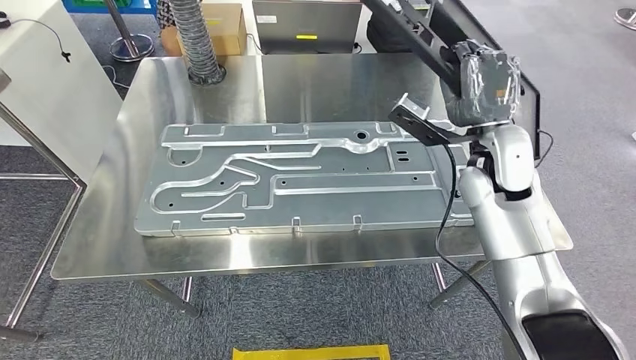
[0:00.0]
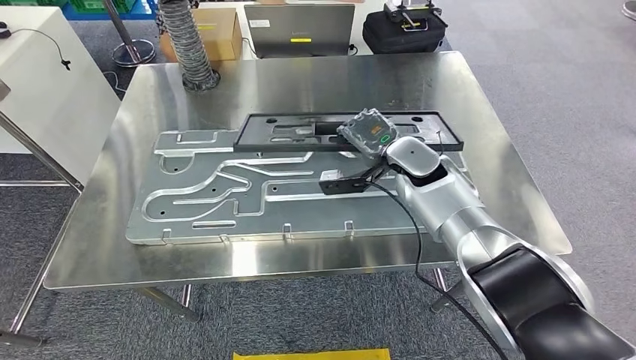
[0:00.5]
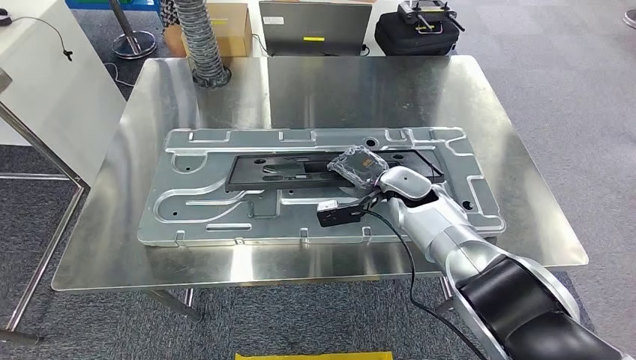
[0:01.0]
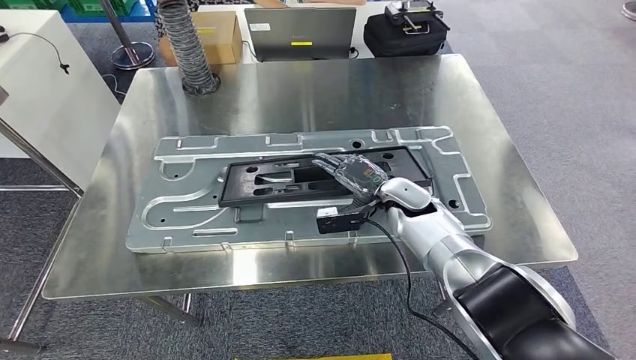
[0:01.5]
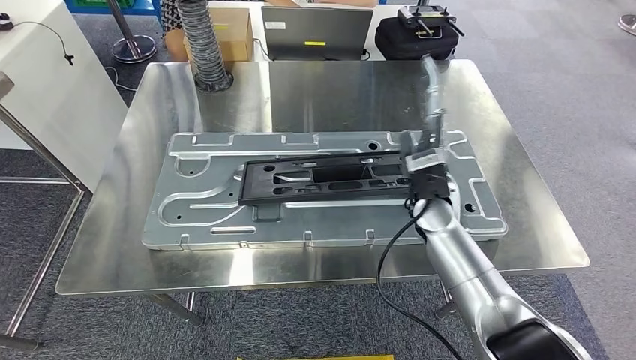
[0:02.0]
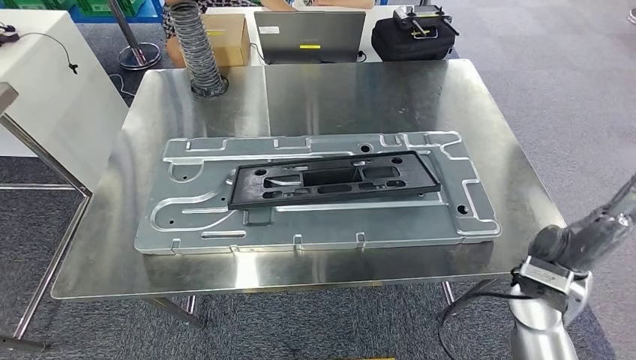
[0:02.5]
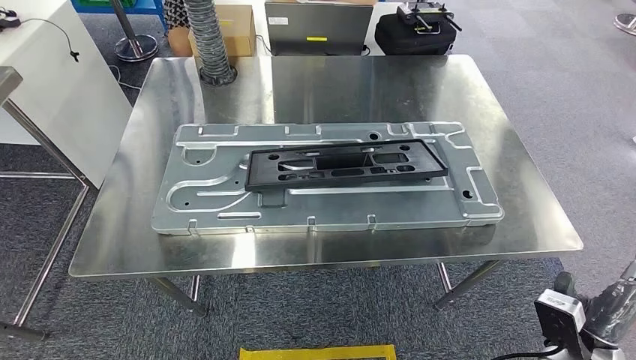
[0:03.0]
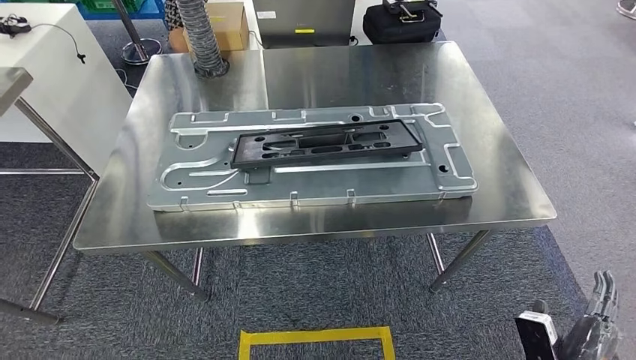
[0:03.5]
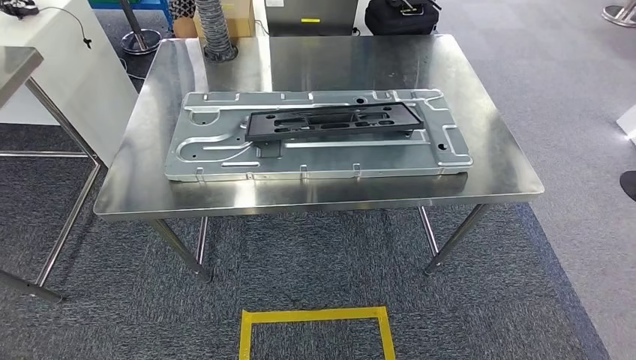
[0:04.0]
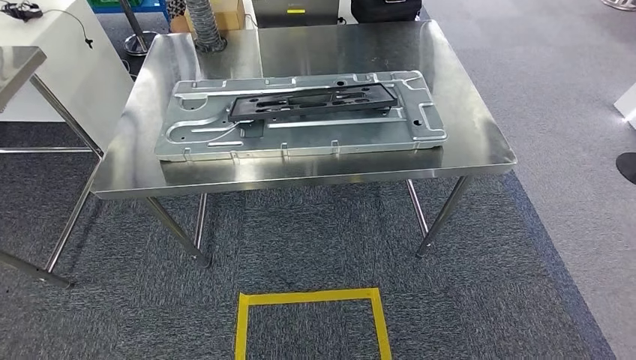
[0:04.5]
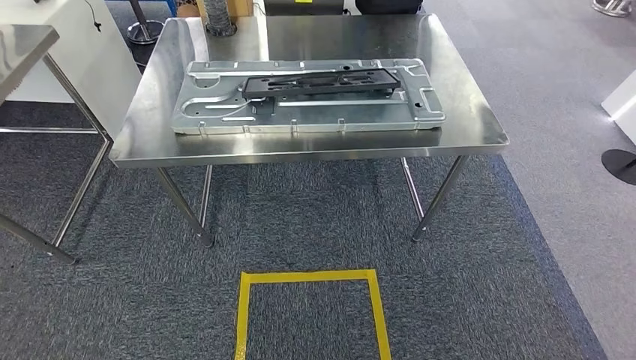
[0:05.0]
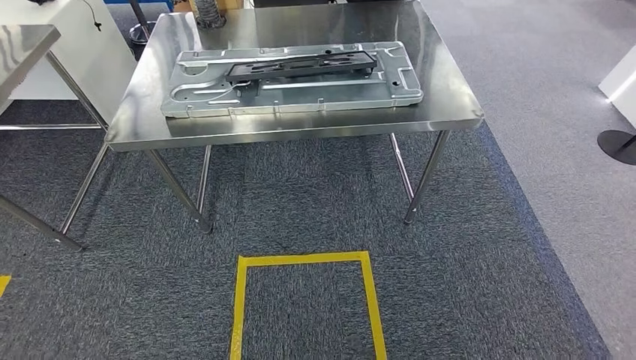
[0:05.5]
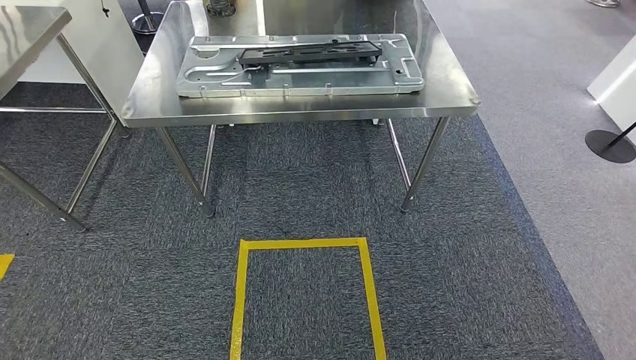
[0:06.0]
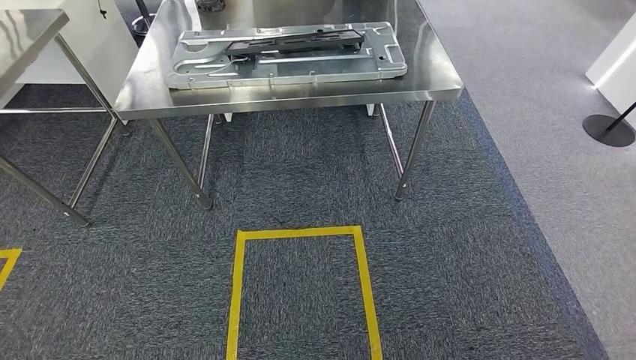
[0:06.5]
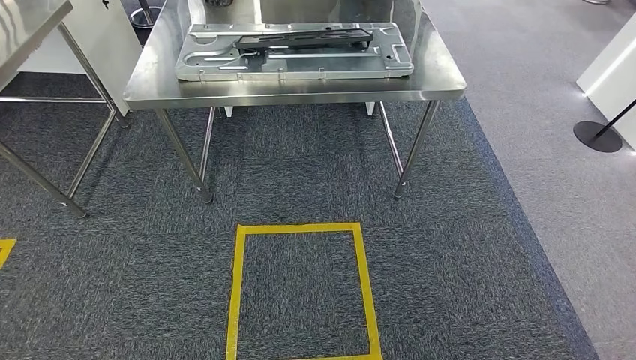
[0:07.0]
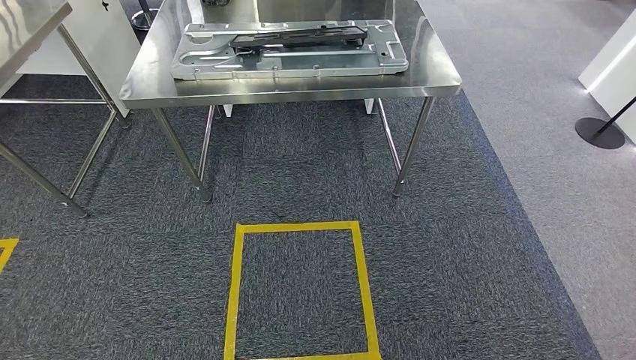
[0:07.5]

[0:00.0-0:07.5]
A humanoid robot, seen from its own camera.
Step, 0:00.5 to 0:03.0: Insert the large material into the corresponding slot on the workbench.
Step, 0:03.5 to 0:07.5: Move to the initial position of the shelf.

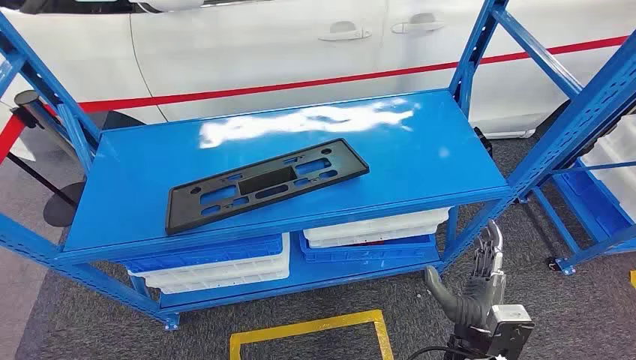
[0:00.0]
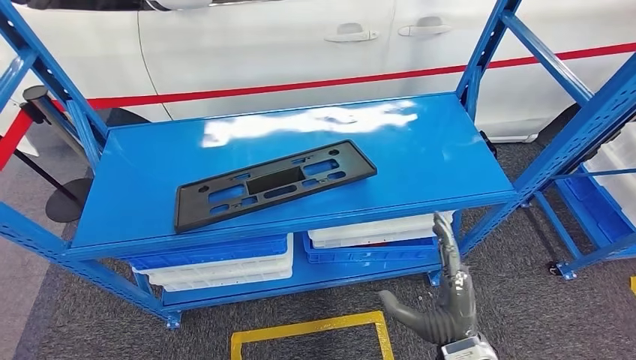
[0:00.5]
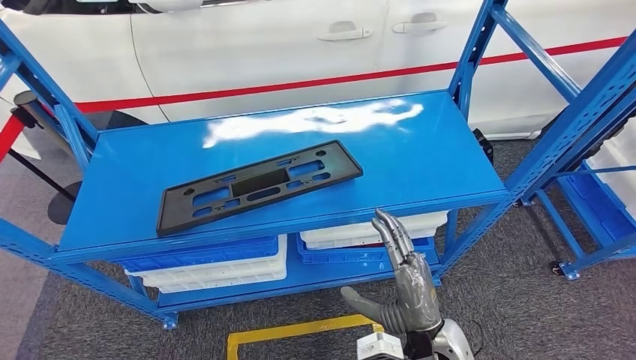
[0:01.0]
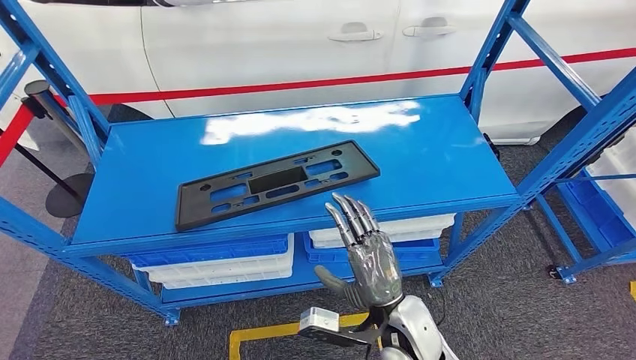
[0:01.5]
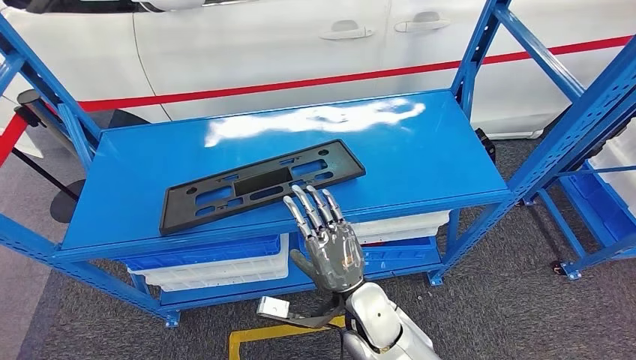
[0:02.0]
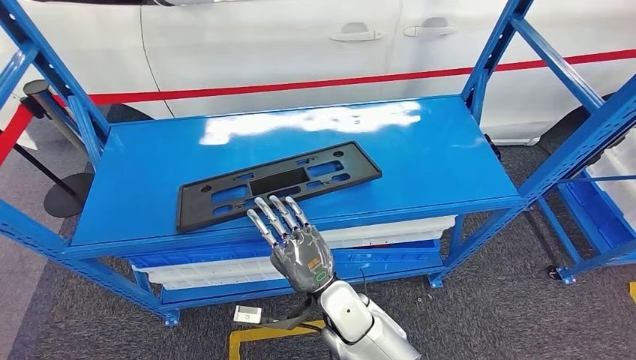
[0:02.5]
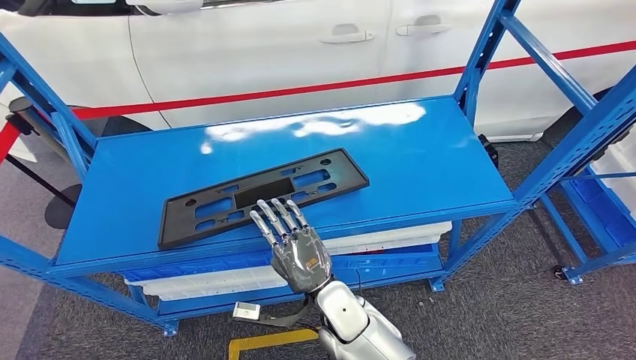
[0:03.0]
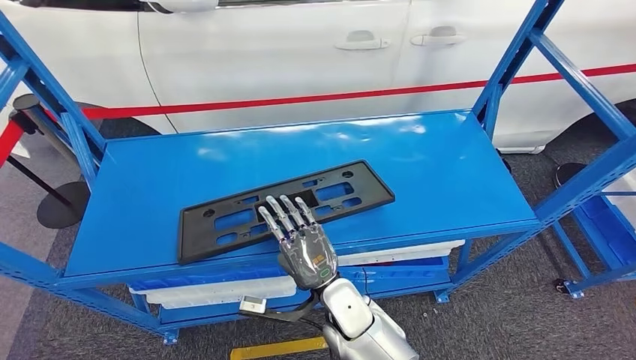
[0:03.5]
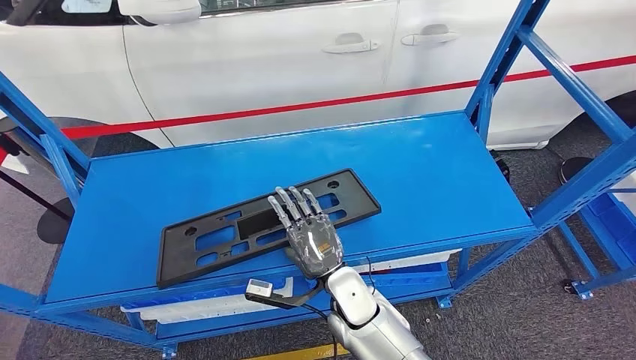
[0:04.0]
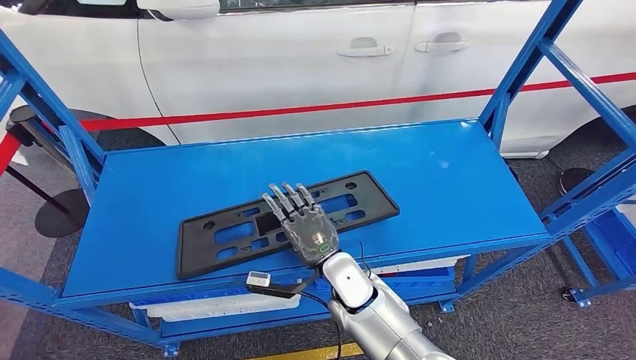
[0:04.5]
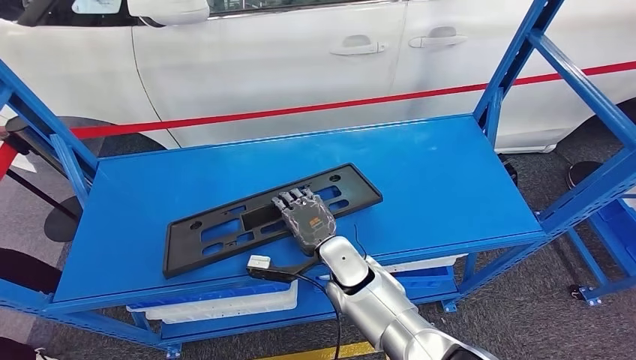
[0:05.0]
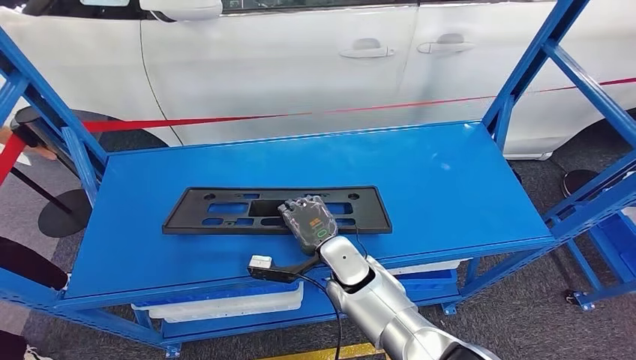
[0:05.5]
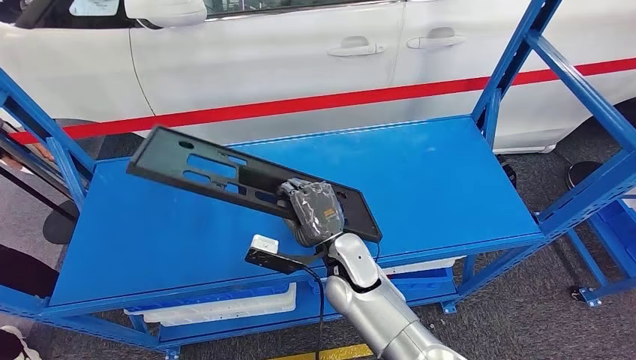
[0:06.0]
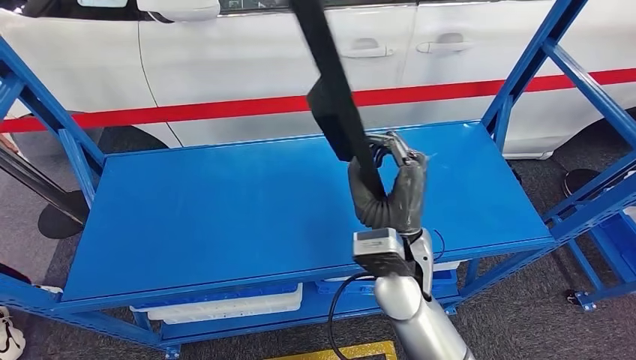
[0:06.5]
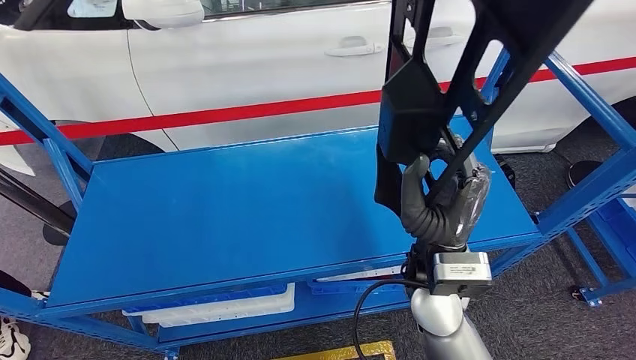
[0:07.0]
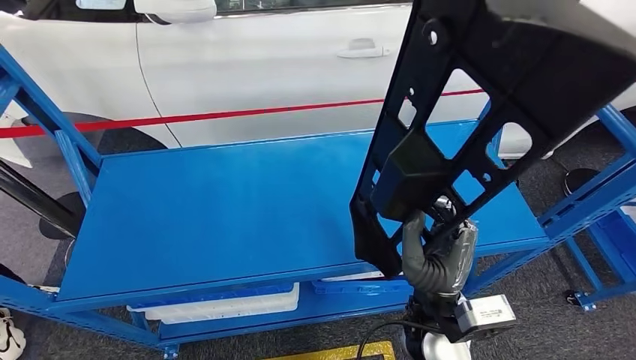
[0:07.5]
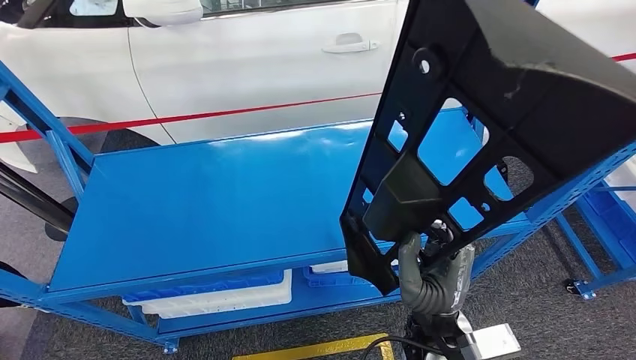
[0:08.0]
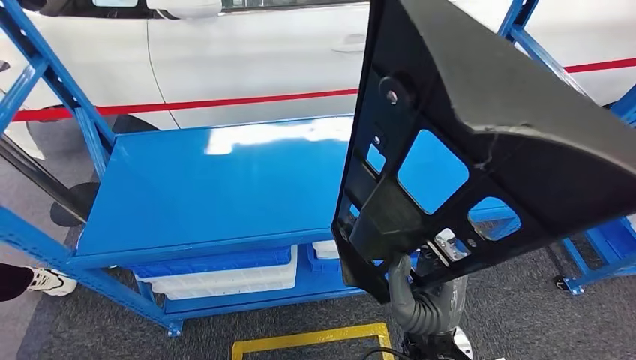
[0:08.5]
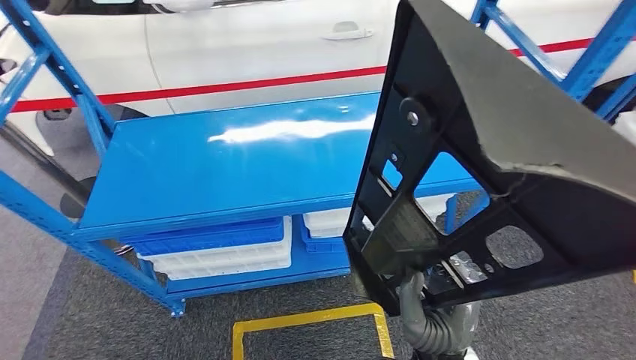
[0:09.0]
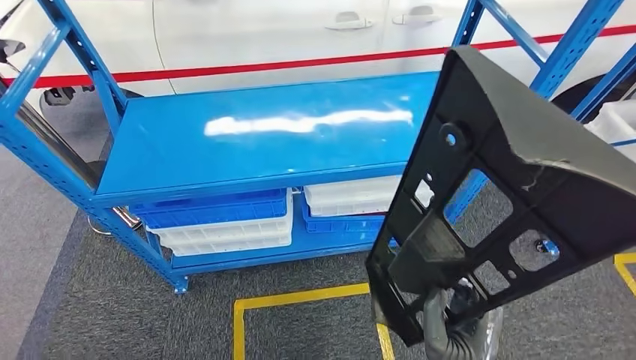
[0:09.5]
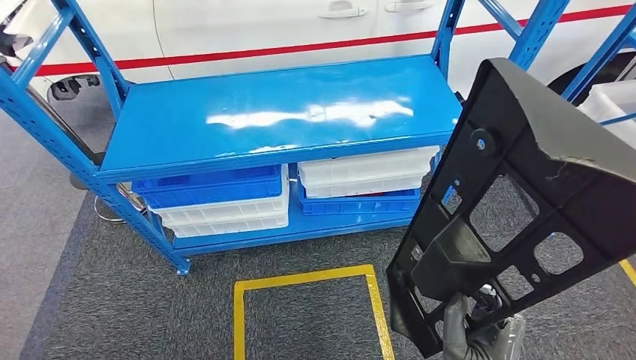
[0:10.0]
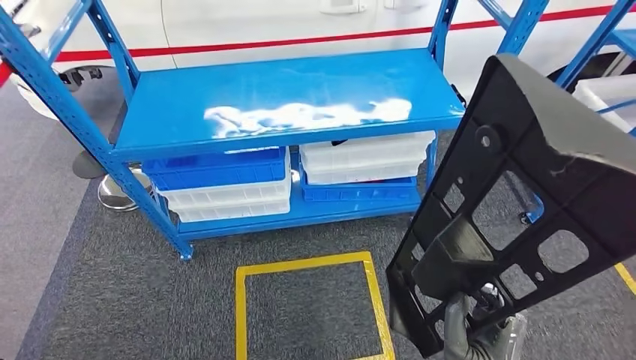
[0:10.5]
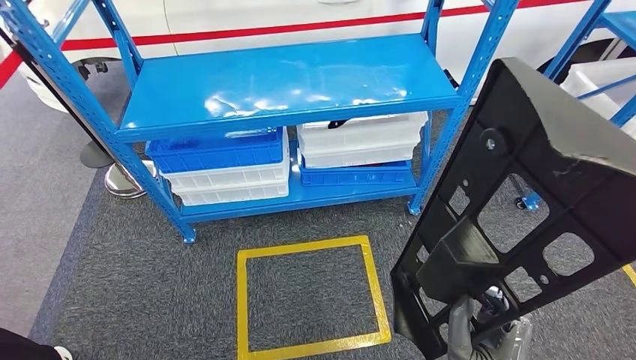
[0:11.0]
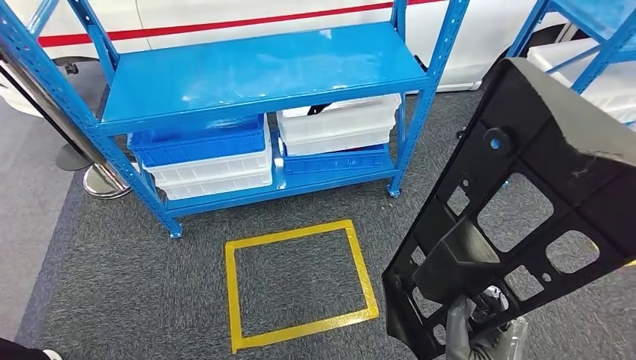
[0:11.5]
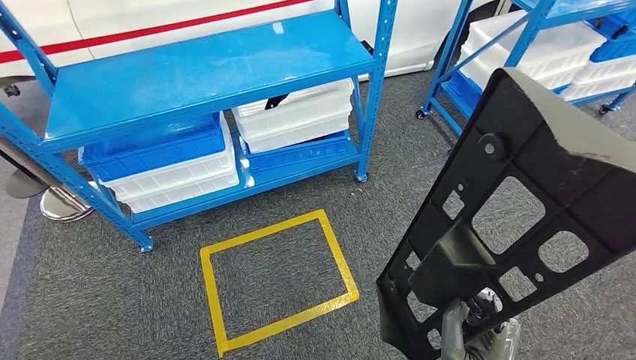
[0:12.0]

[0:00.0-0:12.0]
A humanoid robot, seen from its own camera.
Step, 0:00.0 to 0:09.5: Pick up the large material from the shelf.
